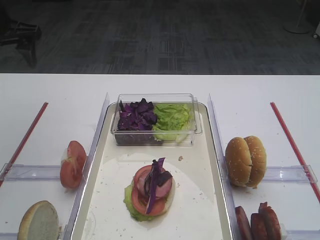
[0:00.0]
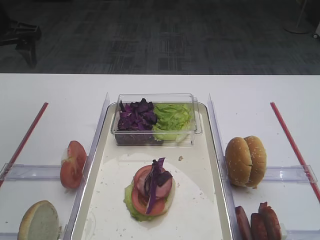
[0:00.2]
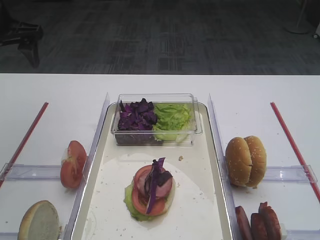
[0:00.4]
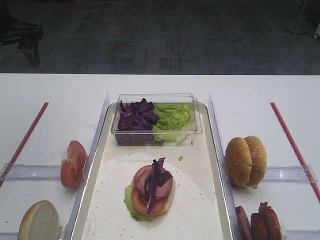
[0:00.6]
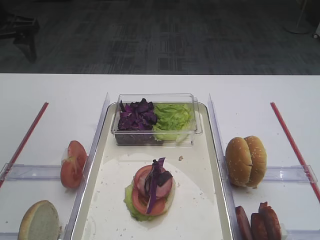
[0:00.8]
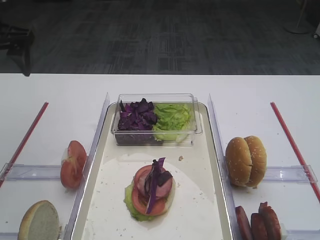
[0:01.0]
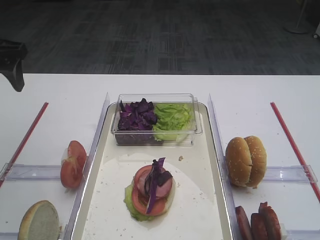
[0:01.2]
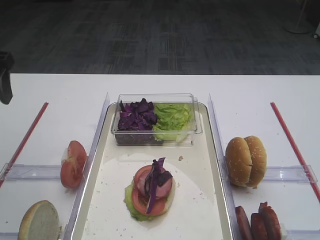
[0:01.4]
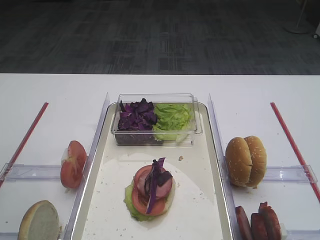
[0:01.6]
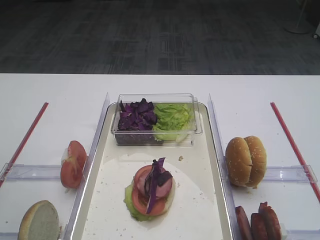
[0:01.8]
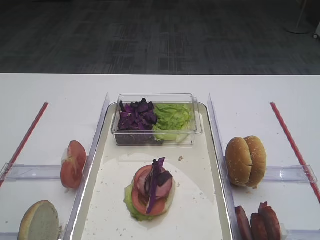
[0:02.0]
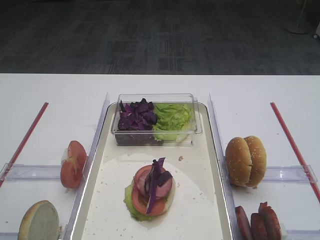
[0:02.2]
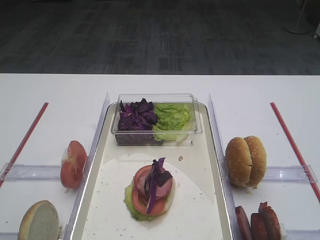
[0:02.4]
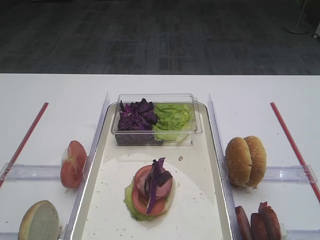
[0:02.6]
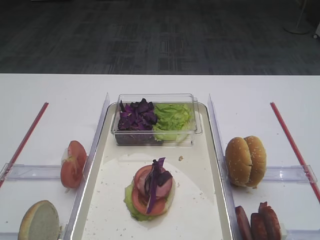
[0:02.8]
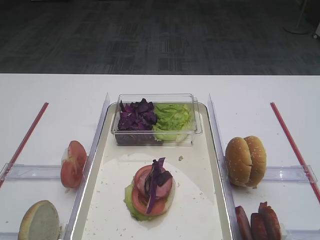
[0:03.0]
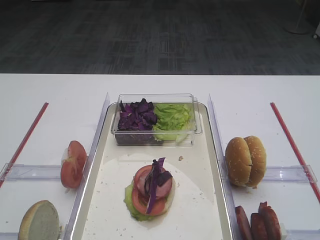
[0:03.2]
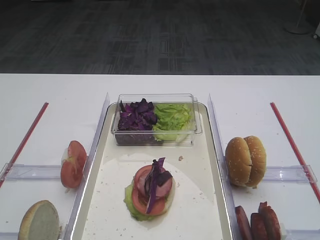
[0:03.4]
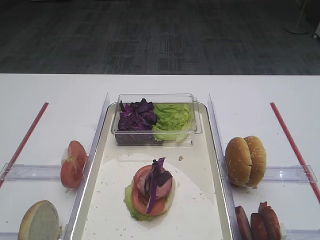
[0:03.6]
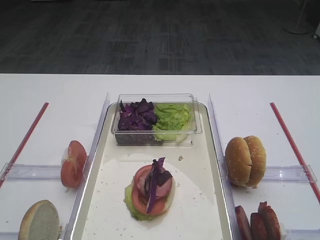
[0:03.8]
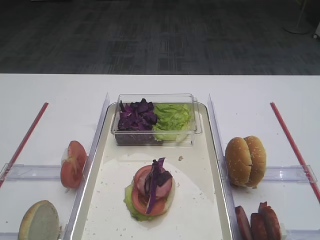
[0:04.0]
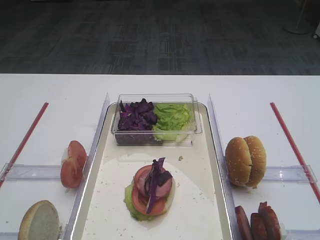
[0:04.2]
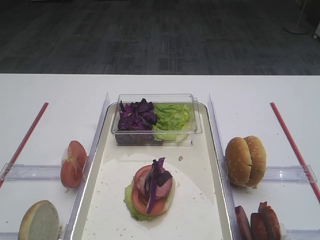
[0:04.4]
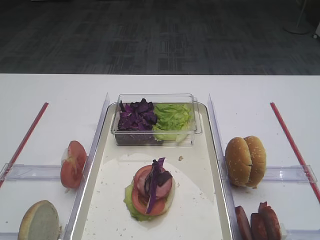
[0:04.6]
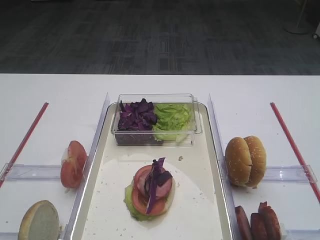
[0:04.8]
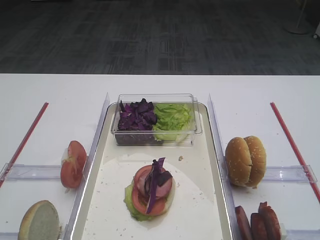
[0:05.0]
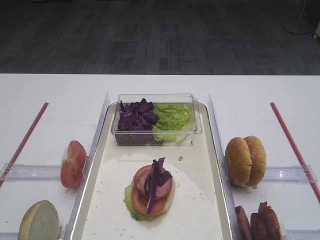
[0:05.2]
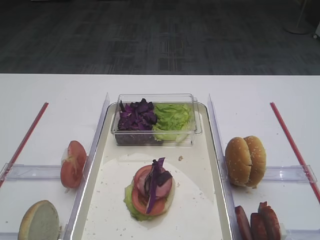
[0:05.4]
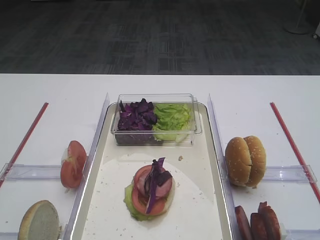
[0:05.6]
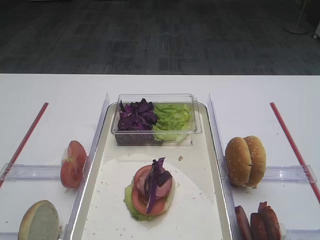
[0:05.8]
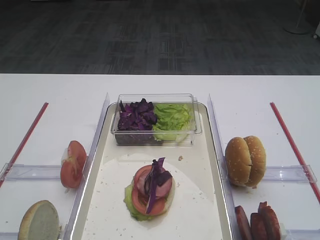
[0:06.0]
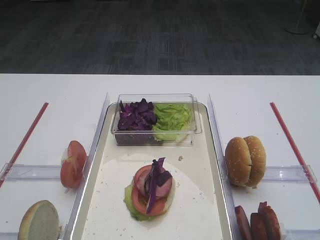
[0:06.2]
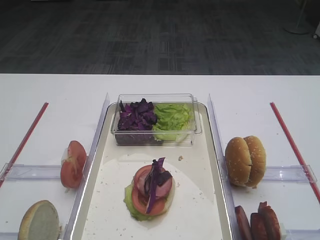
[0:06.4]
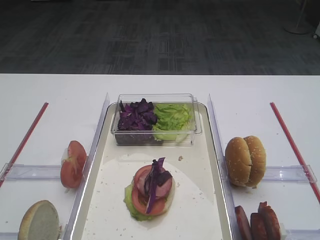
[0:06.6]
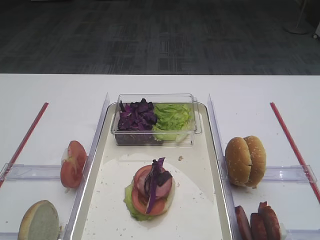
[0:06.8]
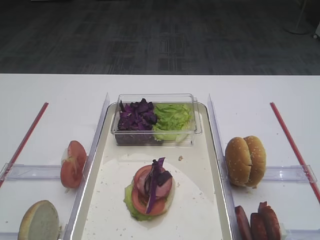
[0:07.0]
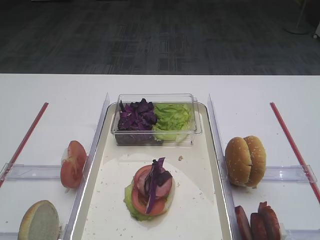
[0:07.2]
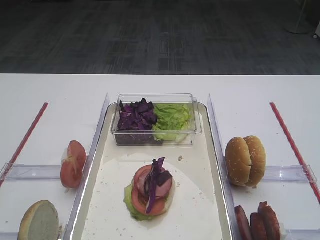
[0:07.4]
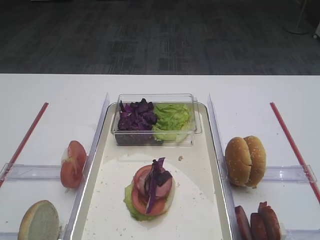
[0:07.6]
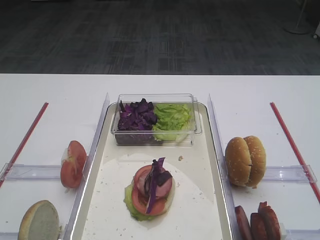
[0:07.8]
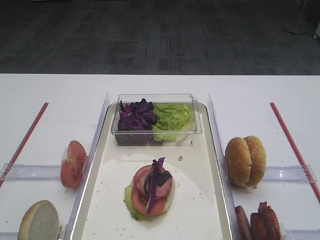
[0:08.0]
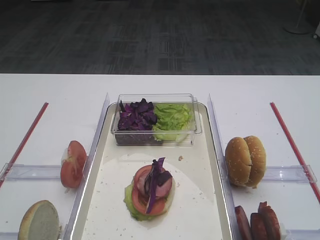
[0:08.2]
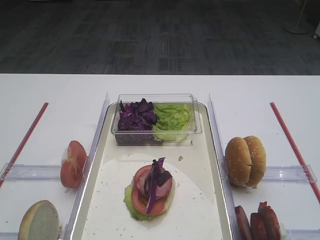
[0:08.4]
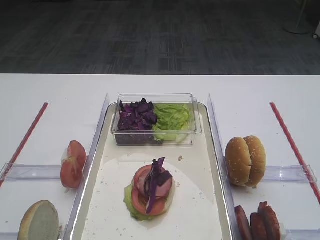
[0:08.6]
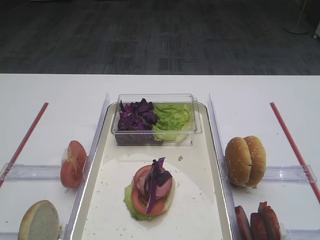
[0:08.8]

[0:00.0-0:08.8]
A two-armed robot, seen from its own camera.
0:00.0 to 0:01.4: The left gripper heads backward, covering some 10 cm.
0:01.4 to 0:03.0: The left gripper is displaced backward by roughly 25 cm.
0:04.4 to 0:08.8: Both grippers stay about where they are.

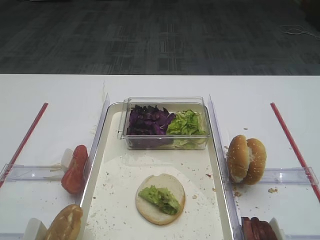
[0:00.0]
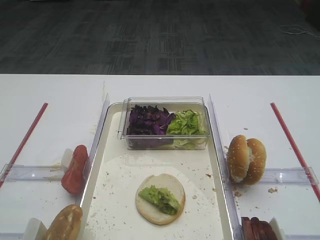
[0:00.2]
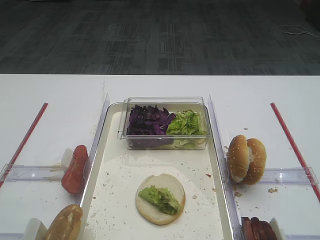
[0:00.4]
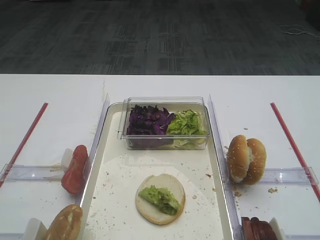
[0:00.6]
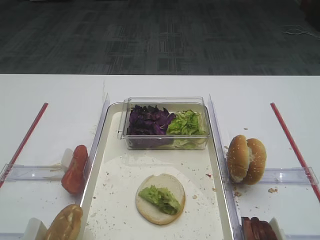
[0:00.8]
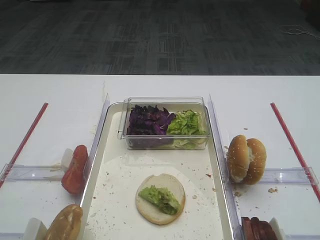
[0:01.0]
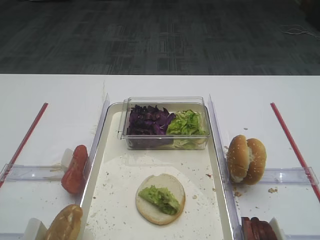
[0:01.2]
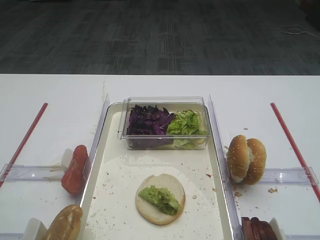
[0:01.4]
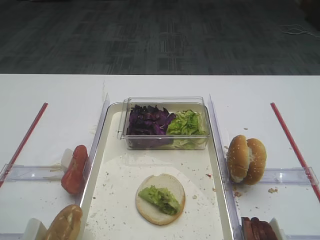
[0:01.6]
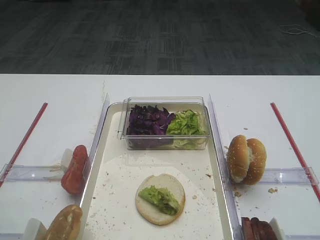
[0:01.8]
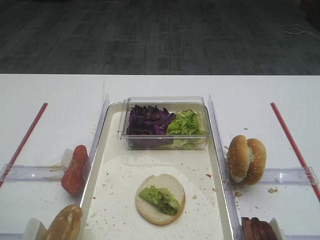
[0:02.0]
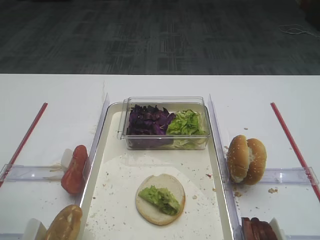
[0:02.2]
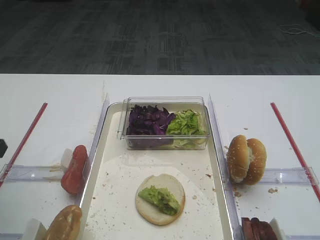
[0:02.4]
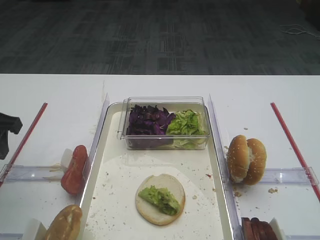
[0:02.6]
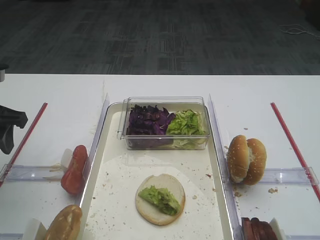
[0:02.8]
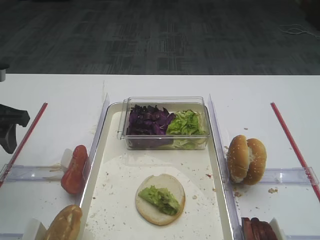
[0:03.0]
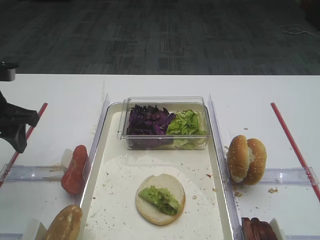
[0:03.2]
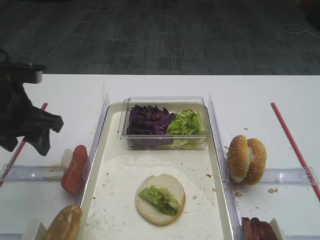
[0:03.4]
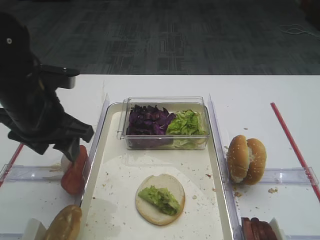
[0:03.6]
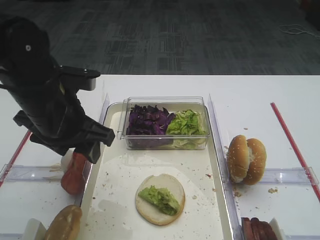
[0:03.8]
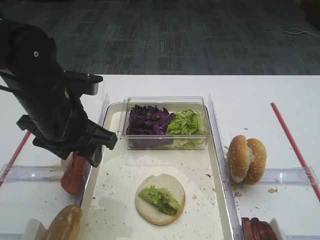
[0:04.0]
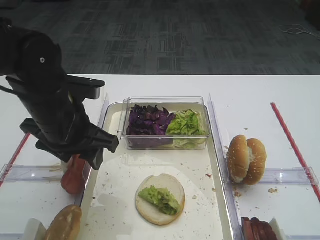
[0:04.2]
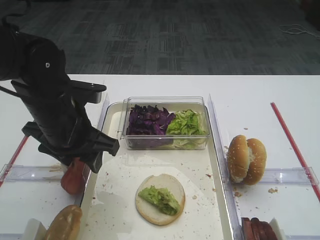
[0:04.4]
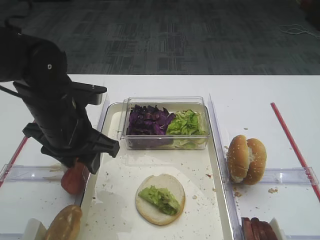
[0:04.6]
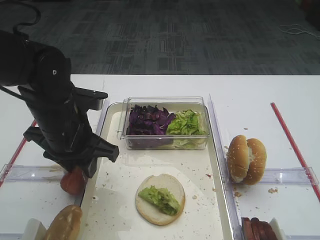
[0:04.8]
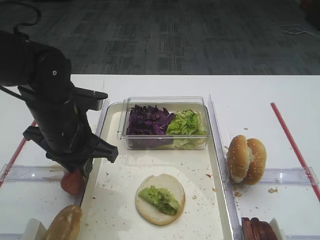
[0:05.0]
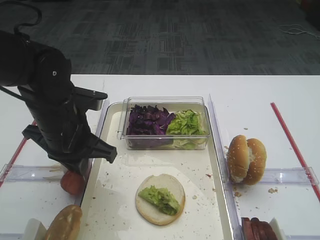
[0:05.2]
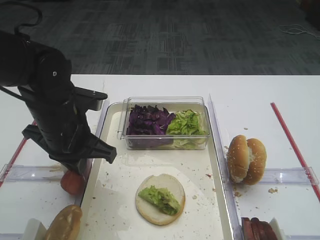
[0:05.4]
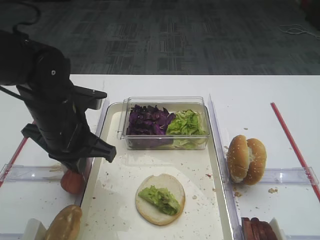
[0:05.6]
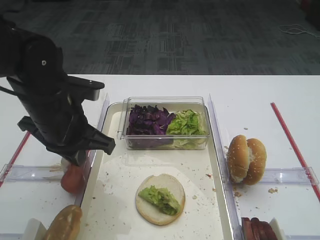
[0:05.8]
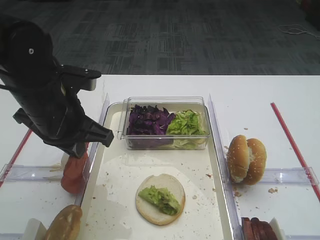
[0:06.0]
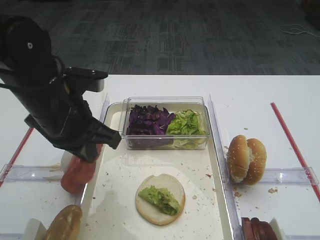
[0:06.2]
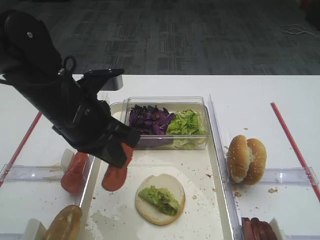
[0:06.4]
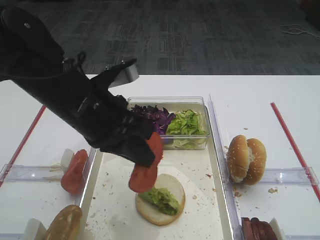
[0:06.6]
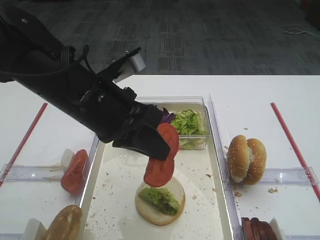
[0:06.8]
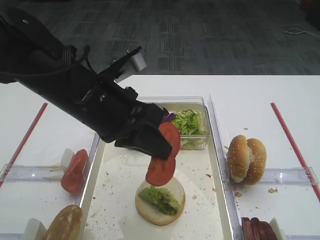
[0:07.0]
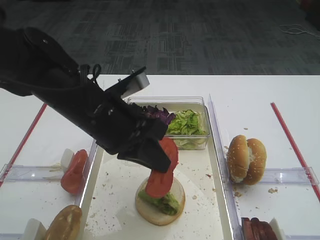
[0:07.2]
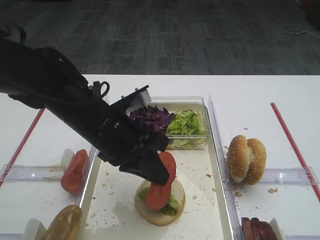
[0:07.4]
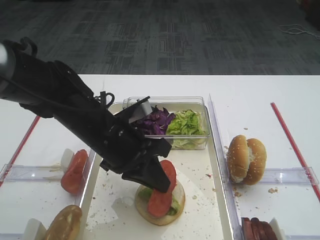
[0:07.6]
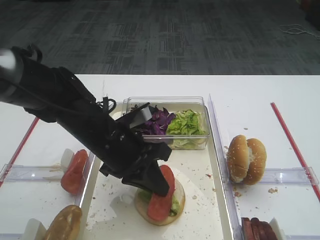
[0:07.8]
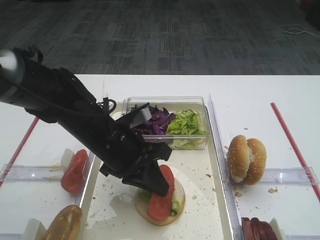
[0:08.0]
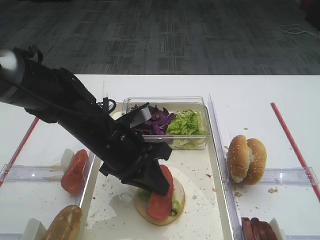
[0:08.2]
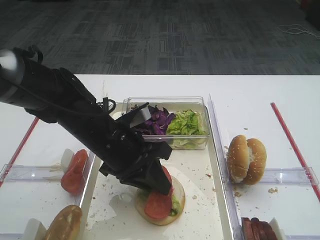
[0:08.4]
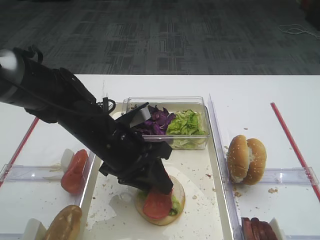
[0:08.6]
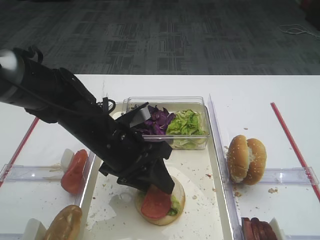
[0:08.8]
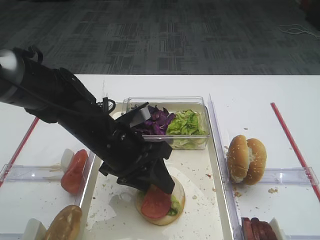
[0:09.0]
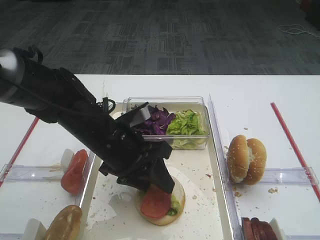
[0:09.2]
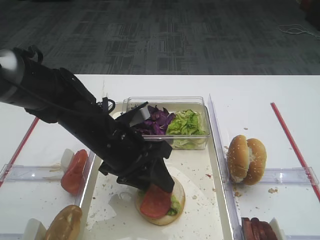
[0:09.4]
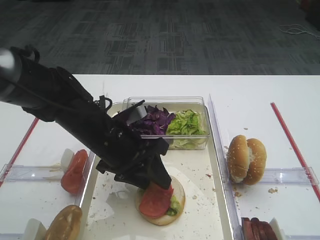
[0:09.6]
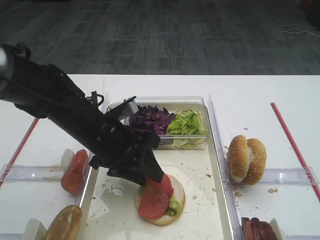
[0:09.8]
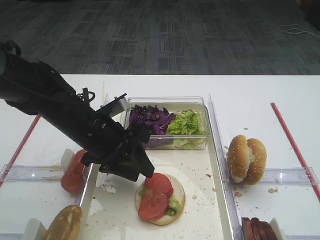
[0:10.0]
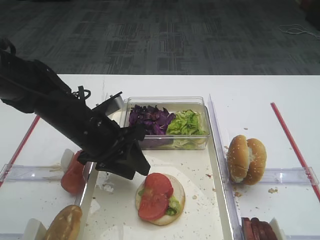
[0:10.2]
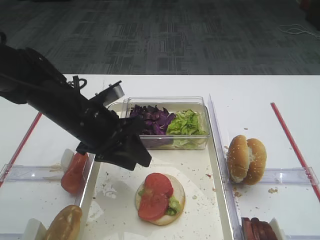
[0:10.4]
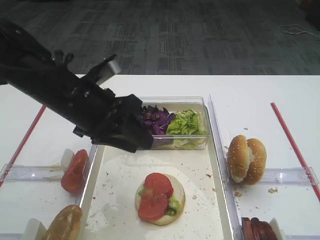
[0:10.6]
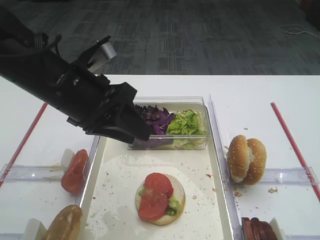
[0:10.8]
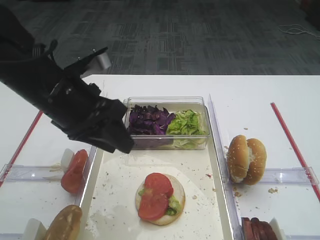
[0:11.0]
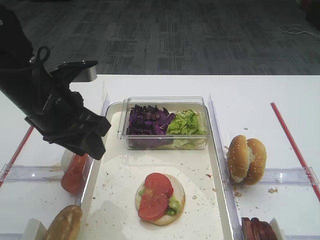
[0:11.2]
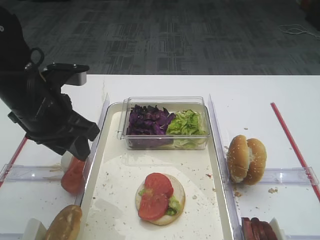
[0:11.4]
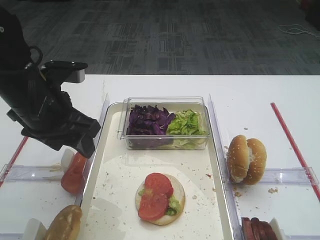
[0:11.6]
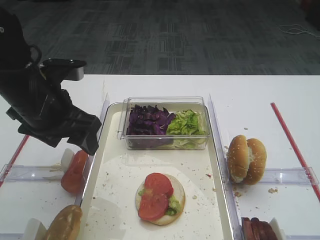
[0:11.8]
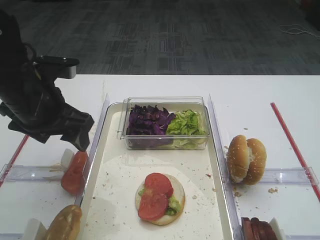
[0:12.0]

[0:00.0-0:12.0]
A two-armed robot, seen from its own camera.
Step, 0:00.0 to 0:06.2: Pick up the tomato slice with the left gripper.
Step, 0:06.4 to 0:10.8: Place the tomato slice on the lettuce leaf with the left gripper.
0:01.6 to 0:03.0: The left gripper moves forward, roughly 15 cm.
0:03.0 to 0:04.4: The left gripper shifts some 15 cm to the right.
0:04.4 to 0:06.0: The left gripper closes up.
0:06.0 to 0:07.6: The left gripper travels to the right and downward by roughly 10 cm.
0:07.6 to 0:09.0: The left gripper opens its fingers.
0:09.0 to 0:10.4: The left gripper changes place by roughly 5 cm.
0:10.4 to 0:12.0: The left gripper moves to the left, roughly 5 cm, and opens its fingers.

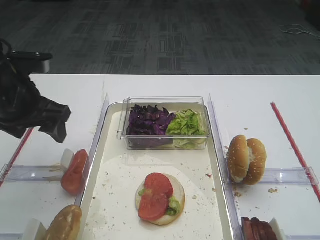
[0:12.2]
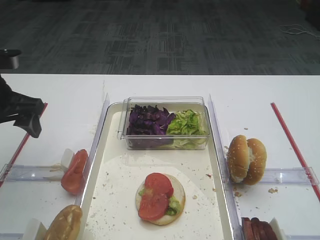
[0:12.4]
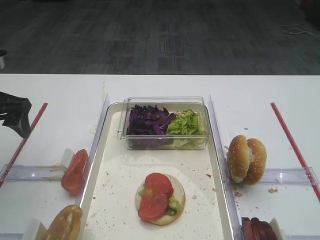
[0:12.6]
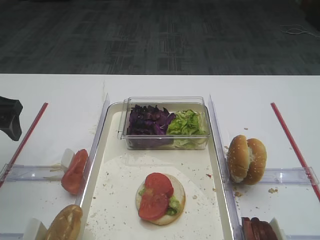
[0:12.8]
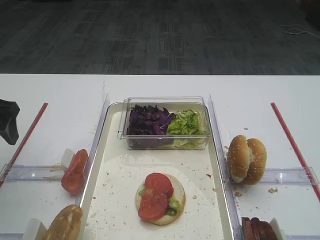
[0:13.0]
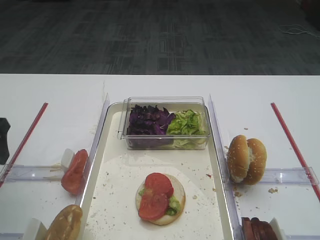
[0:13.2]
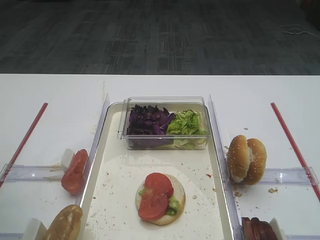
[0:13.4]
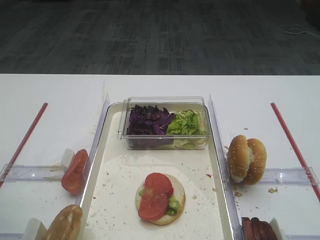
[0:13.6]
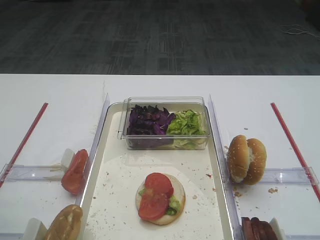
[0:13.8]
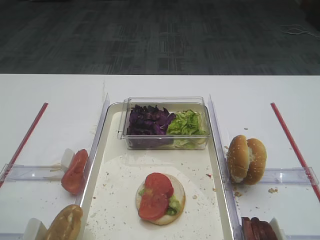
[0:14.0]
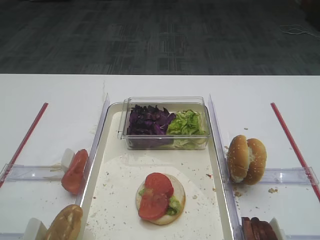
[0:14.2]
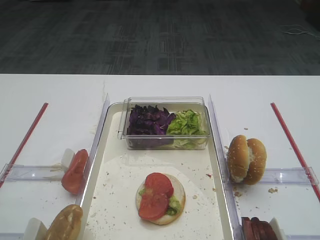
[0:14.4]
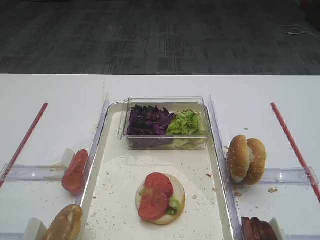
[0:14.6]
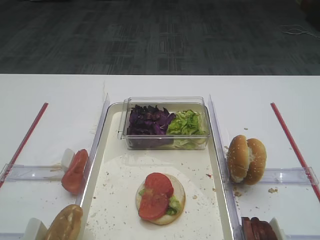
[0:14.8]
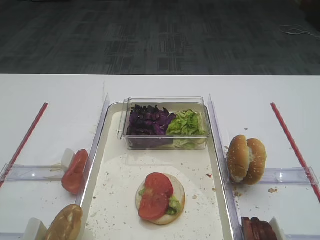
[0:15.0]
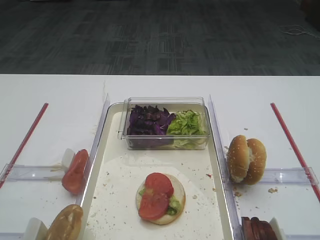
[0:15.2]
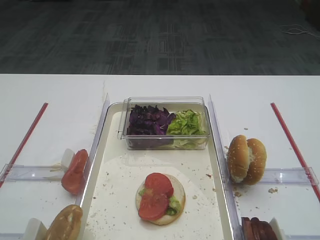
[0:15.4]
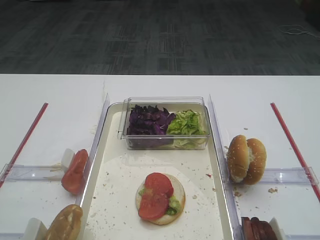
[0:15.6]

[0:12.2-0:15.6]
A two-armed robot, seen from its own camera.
0:12.2 to 0:13.8: The left gripper shifts approximately 15 cm backward and to the left.
